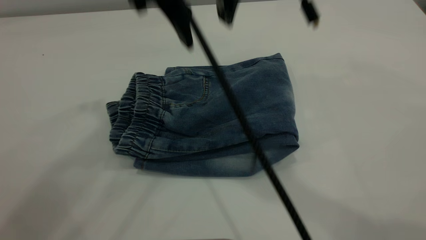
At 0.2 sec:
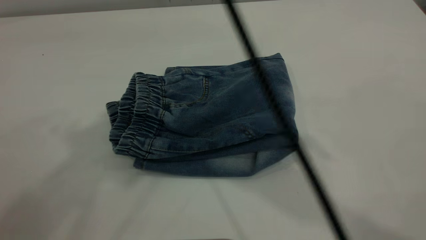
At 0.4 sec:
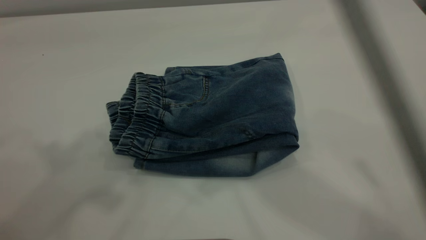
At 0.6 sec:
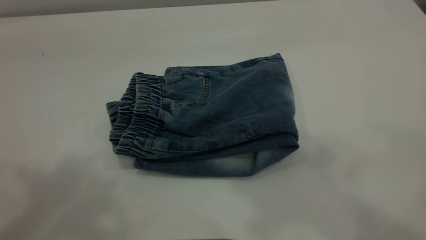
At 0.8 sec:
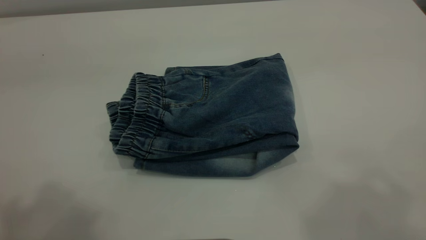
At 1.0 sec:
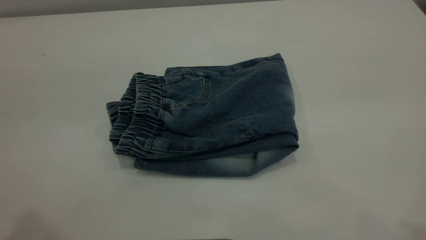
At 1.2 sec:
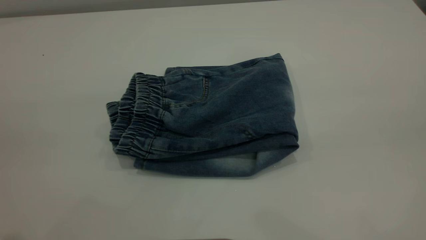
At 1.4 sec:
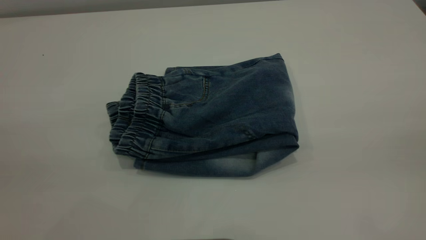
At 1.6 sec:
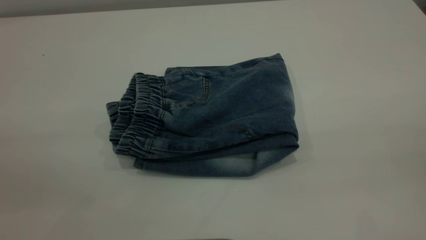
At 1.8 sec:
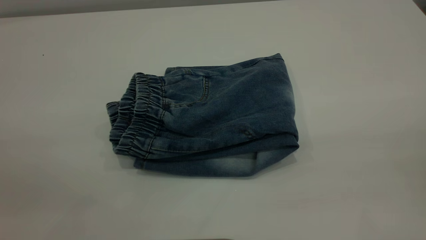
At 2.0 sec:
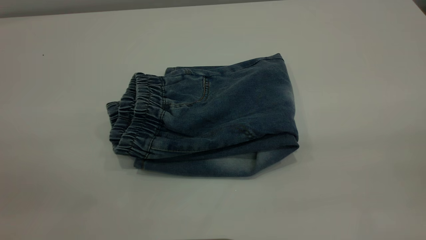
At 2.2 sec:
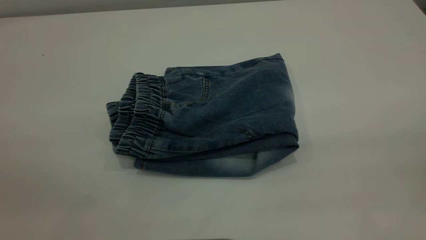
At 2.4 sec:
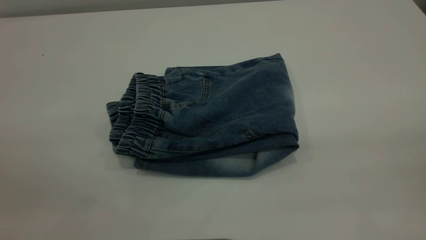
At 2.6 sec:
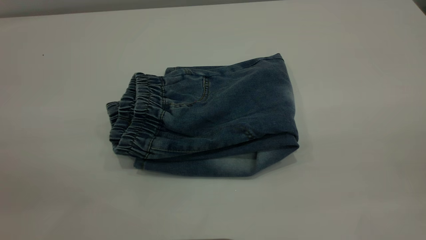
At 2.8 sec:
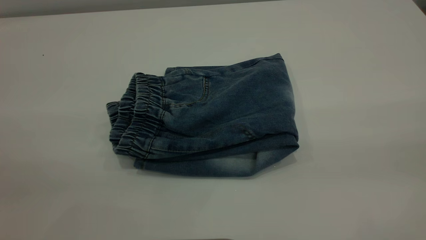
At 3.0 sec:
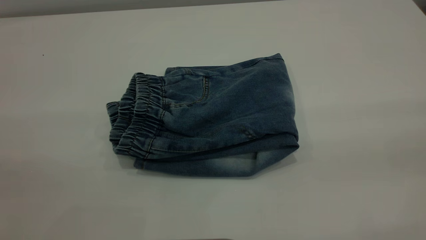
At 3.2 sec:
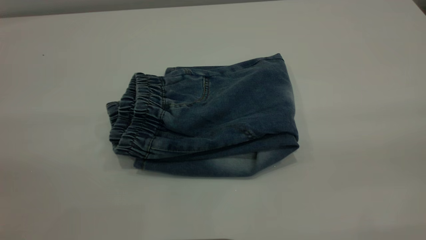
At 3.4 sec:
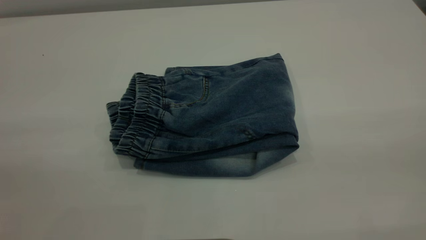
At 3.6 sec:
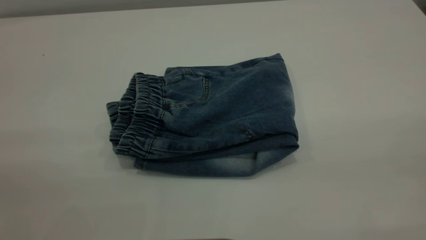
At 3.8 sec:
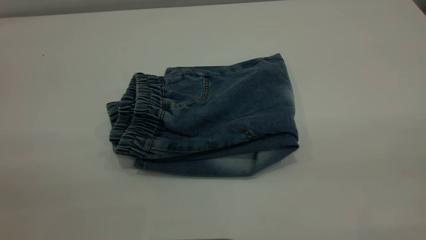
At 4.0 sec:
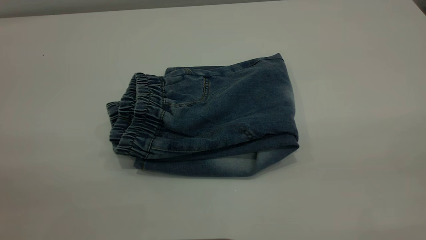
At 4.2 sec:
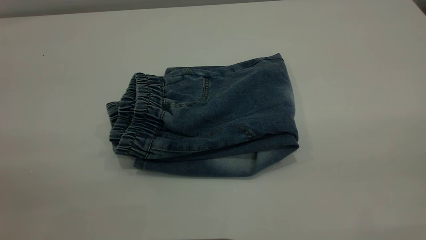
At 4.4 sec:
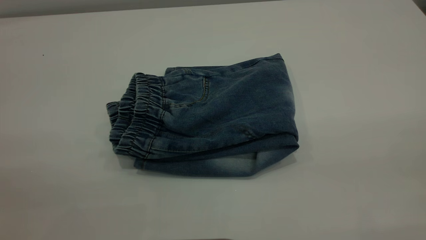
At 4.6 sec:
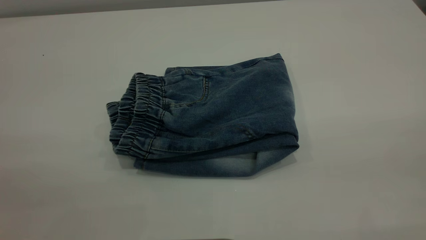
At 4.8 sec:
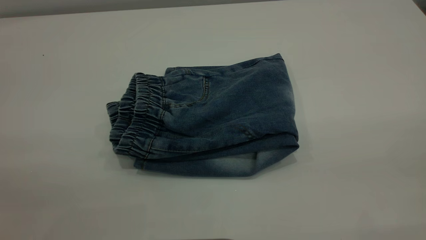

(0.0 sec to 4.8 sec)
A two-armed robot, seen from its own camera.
0.0 sec - 1.6 sec: The left gripper moves backward, downward and to the left, about 30 cm, while the right gripper goes some 40 cm to the right and backward.

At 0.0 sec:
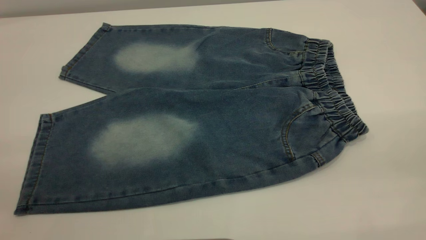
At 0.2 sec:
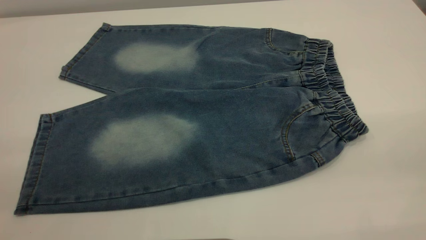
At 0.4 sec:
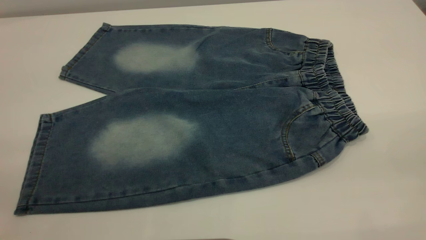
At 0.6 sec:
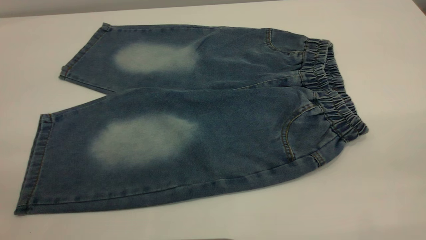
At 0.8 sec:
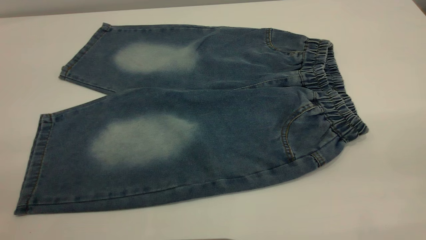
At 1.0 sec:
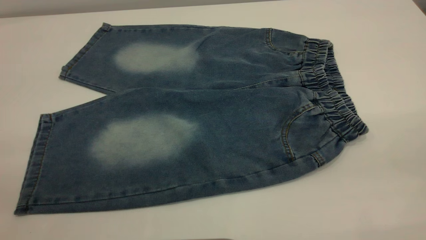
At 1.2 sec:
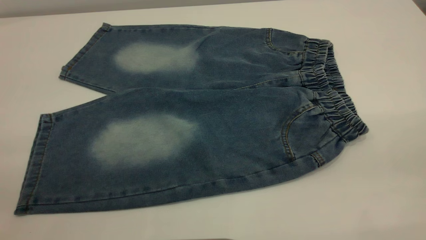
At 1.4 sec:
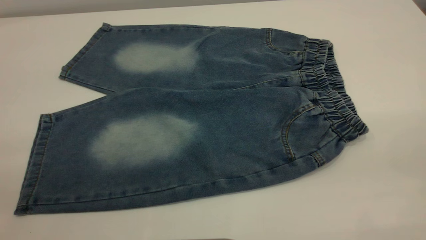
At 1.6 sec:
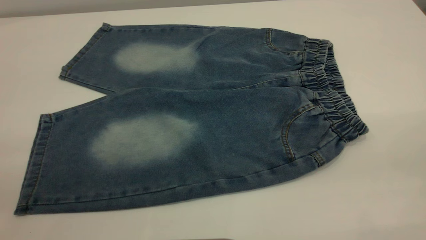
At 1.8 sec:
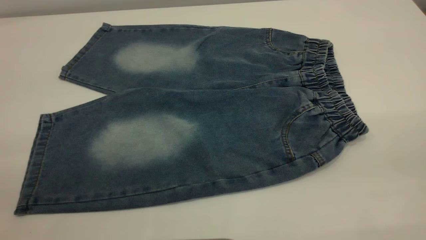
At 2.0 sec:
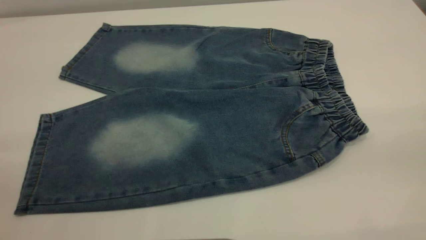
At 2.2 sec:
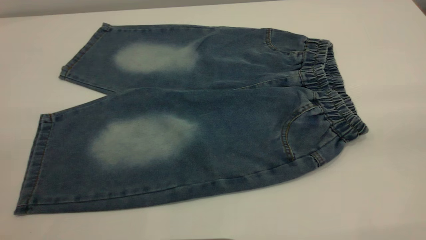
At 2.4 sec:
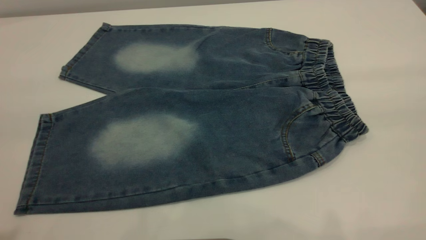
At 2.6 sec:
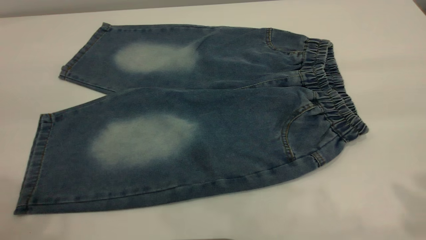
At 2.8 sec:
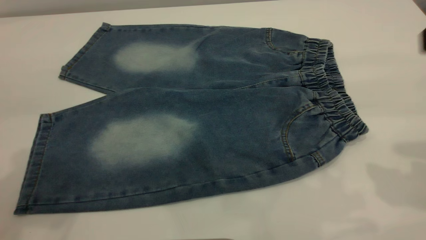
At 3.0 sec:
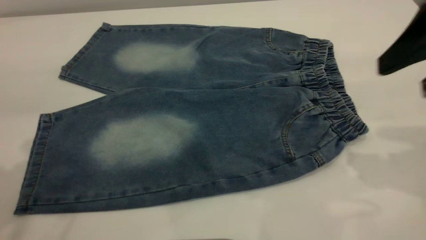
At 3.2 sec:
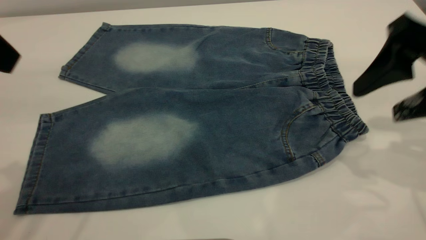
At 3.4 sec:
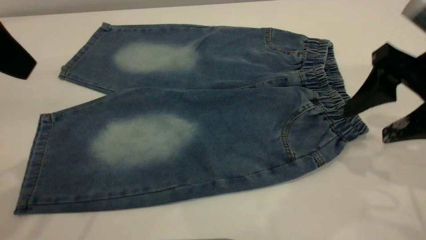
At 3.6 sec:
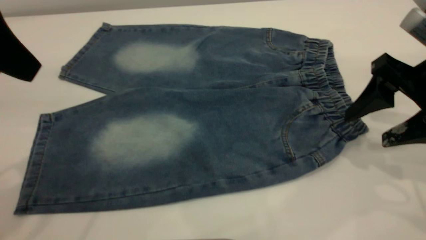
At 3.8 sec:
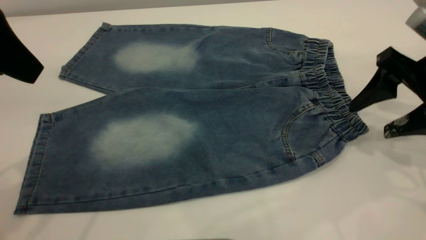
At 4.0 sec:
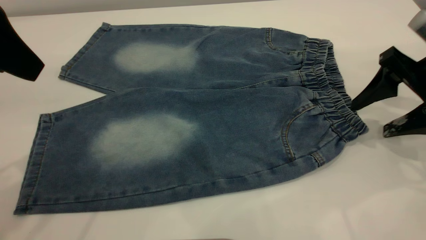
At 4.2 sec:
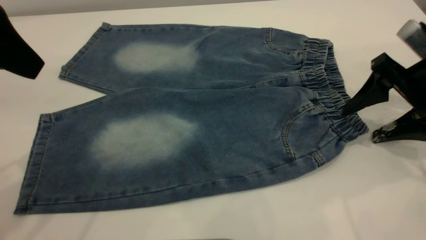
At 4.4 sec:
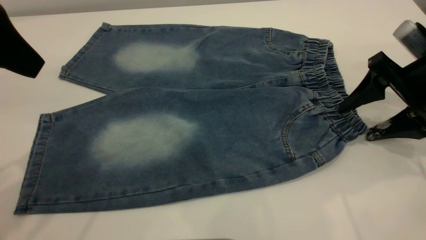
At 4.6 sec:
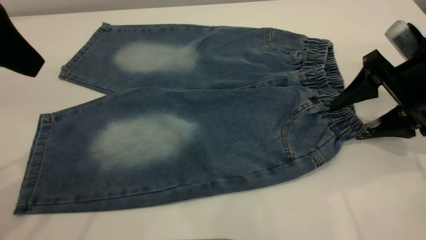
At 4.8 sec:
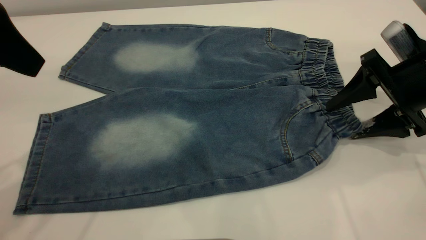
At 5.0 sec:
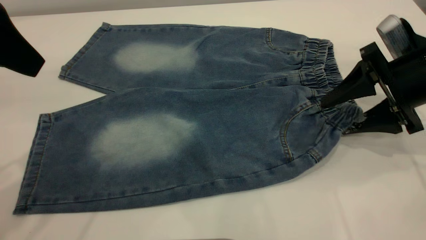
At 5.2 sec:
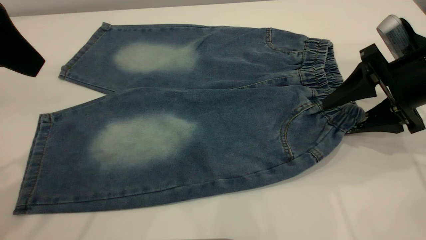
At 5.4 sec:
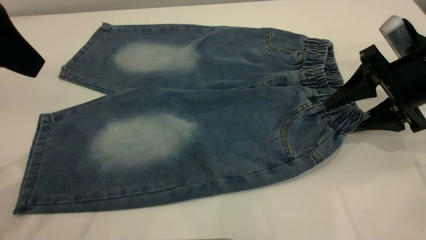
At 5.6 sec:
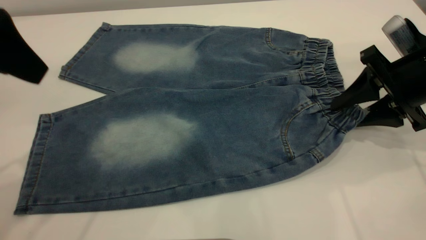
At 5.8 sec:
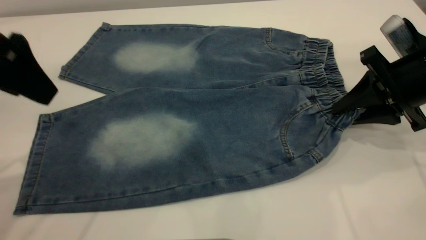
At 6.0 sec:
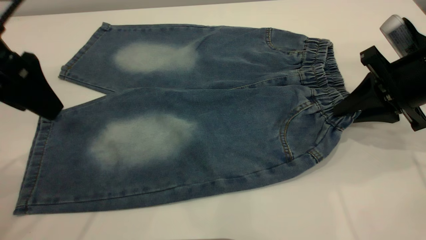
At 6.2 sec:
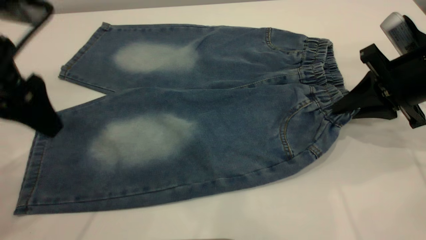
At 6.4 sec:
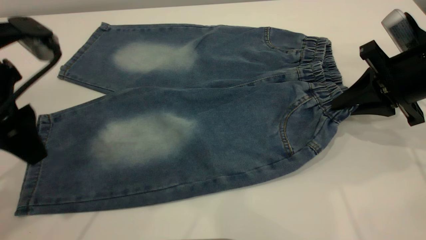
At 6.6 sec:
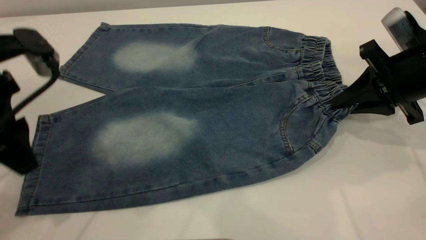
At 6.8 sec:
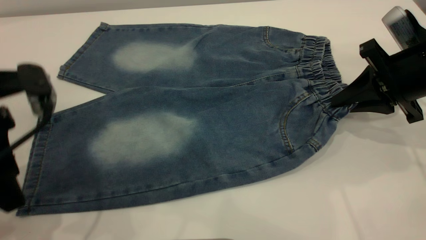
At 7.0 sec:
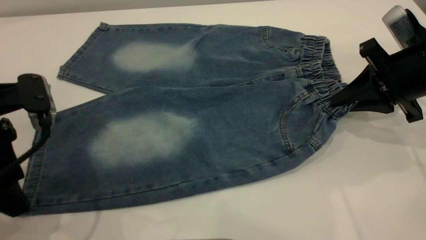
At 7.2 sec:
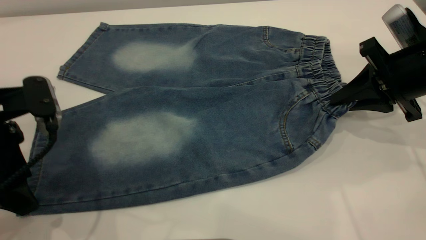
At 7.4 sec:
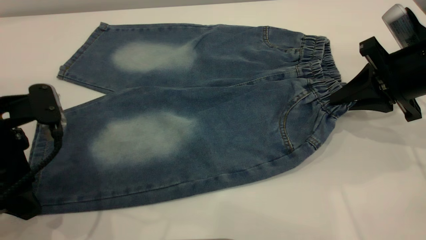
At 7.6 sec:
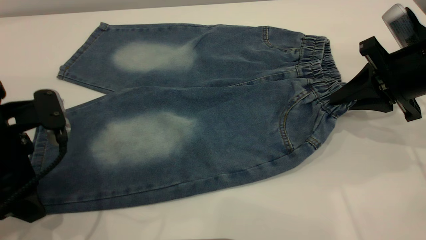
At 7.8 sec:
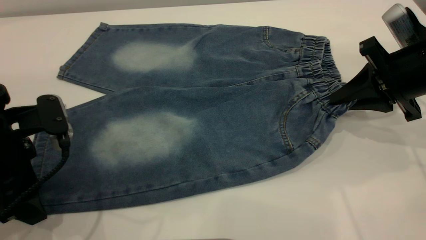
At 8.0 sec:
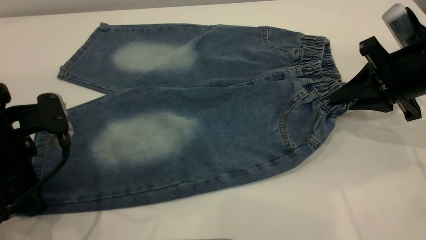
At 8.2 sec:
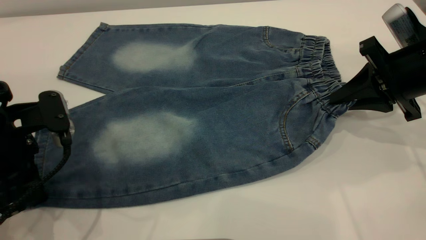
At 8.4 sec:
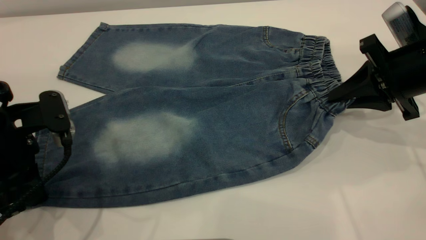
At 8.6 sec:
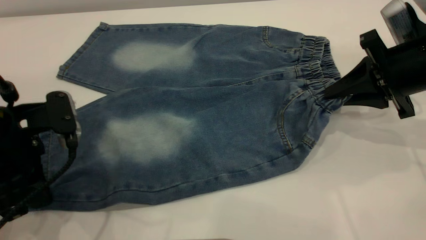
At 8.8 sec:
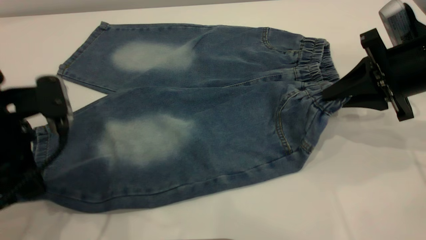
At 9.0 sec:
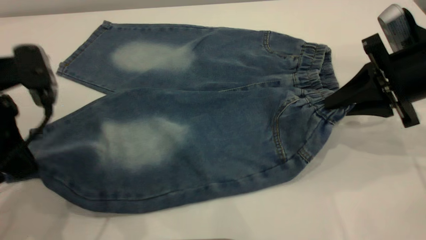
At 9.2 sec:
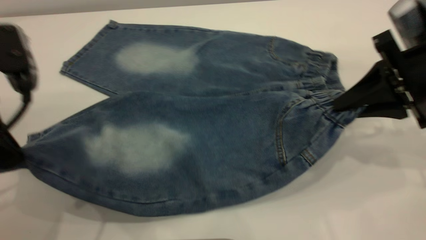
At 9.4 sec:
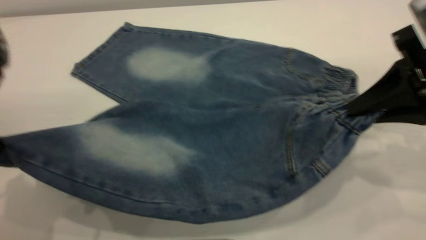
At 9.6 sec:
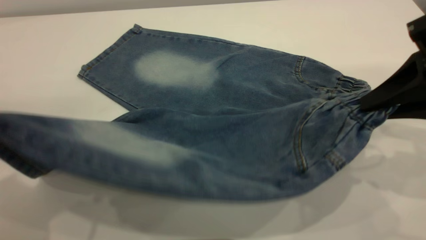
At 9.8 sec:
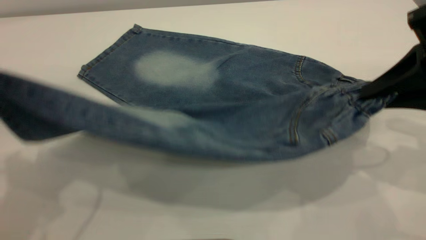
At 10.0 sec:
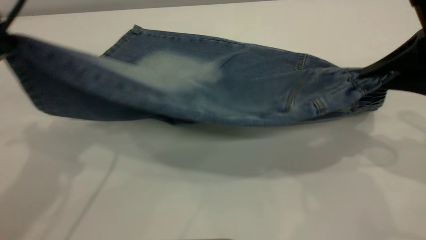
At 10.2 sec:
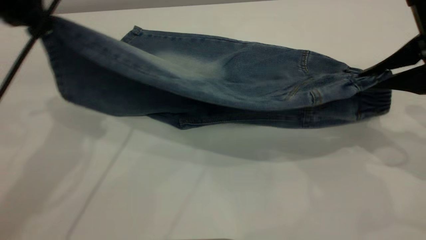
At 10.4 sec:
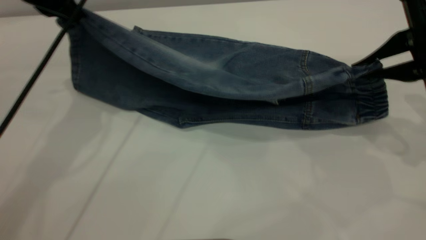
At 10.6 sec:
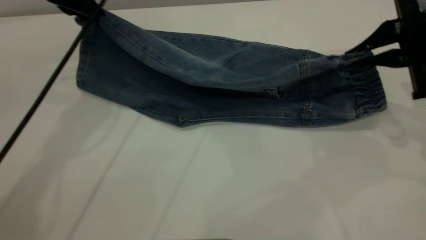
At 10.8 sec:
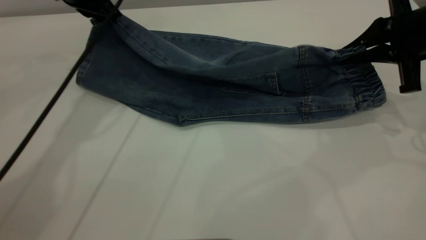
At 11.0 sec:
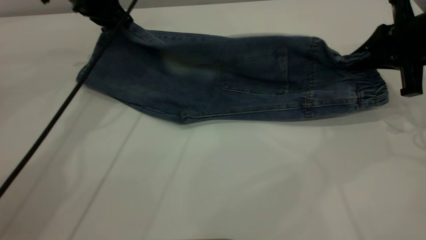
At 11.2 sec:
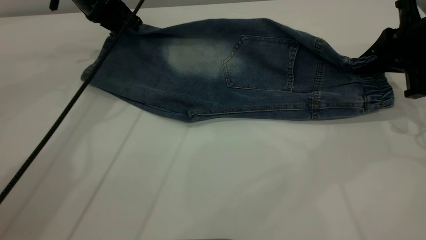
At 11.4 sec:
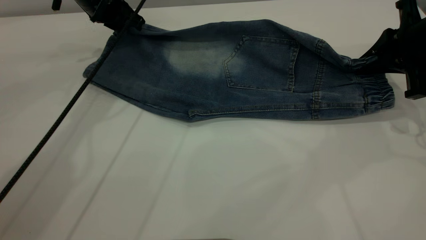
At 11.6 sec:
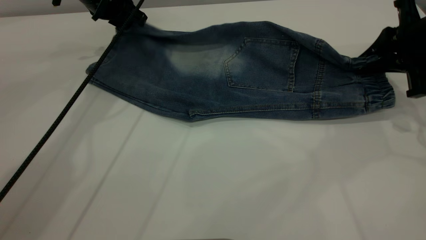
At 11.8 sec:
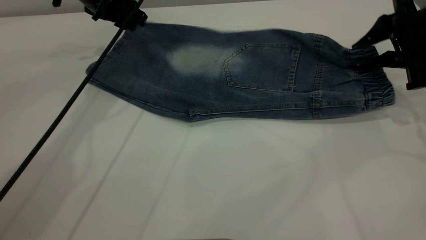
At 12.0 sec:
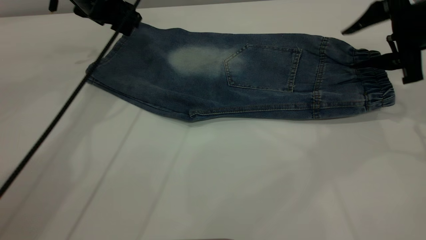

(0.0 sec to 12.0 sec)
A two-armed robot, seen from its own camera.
0.0 sec - 1.6 sec: The two grippers keep their place.
1.6 sec - 3.0 sec: The right gripper travels forward and downward by roughly 25 cm.
3.0 sec - 4.4 sec: The right gripper is displaced downward and forward by roughly 15 cm.
4.4 sec - 6.0 sec: The left gripper shifts approximately 5 cm downward; the right gripper closes its fingers.
6.0 sec - 7.6 sec: The left gripper shifts roughly 10 cm downward.
7.6 sec - 9.0 sec: The left gripper is displaced upward by approximately 5 cm, and closes up.
9.0 sec - 10.4 sec: The left gripper travels forward by approximately 20 cm.
10.4 sec - 12.0 sec: The left gripper is displaced forward and downward by about 10 cm, and opens up; the right gripper goes roughly 5 cm forward, and opens.
